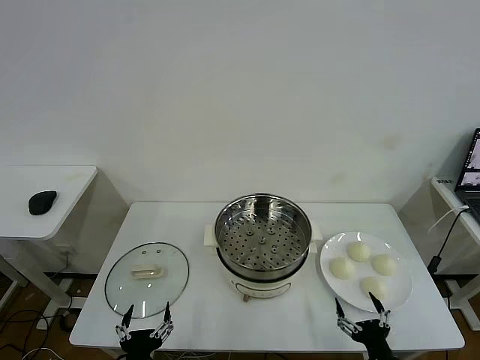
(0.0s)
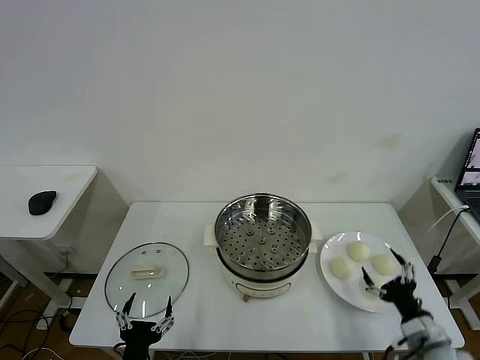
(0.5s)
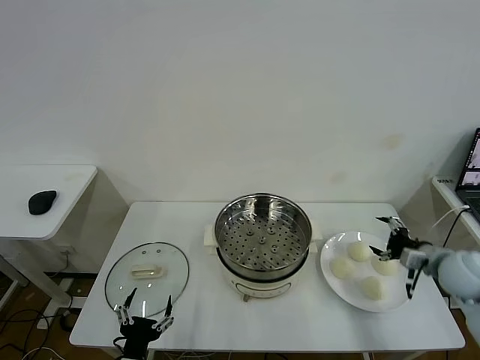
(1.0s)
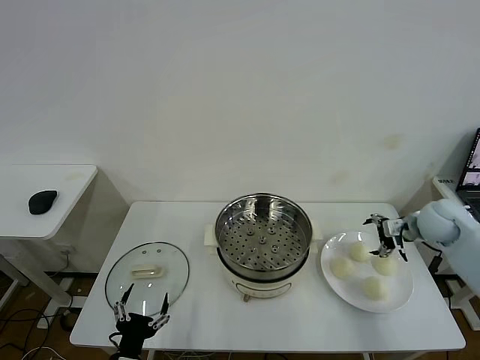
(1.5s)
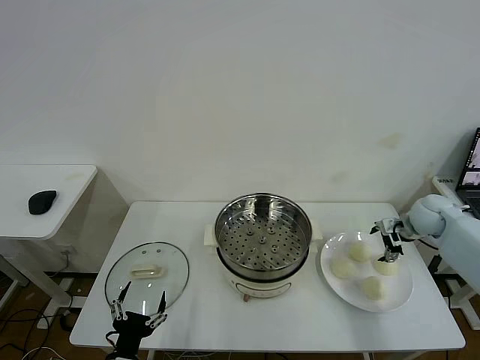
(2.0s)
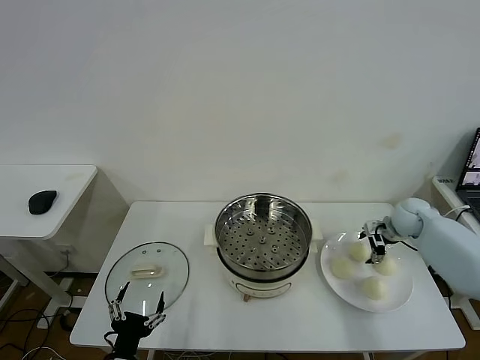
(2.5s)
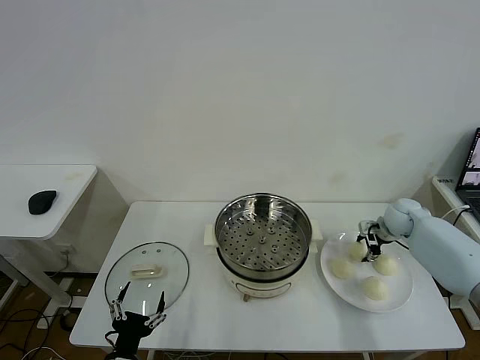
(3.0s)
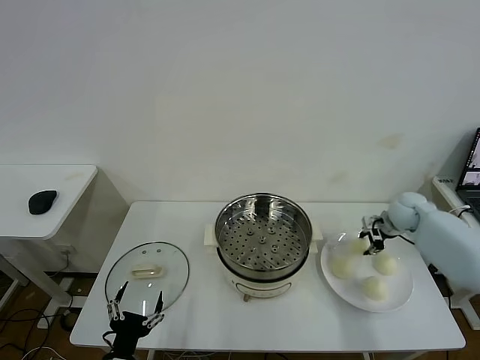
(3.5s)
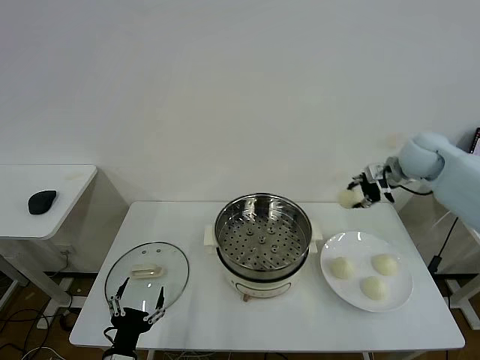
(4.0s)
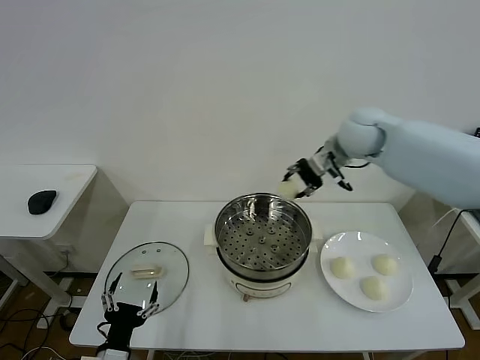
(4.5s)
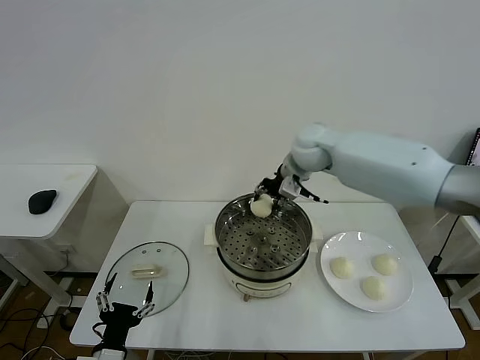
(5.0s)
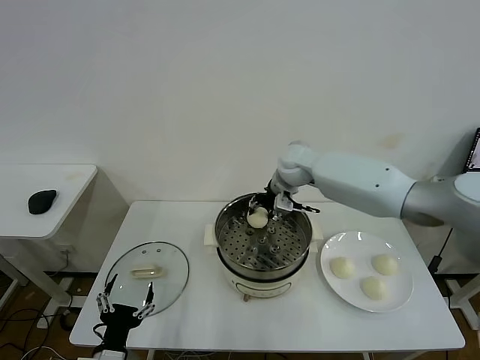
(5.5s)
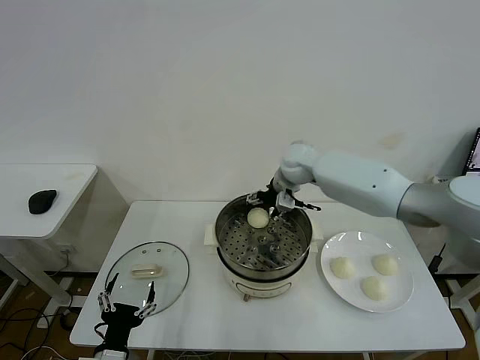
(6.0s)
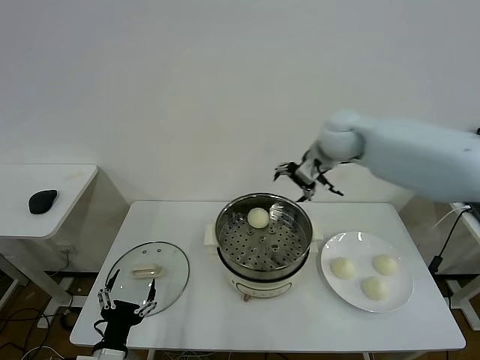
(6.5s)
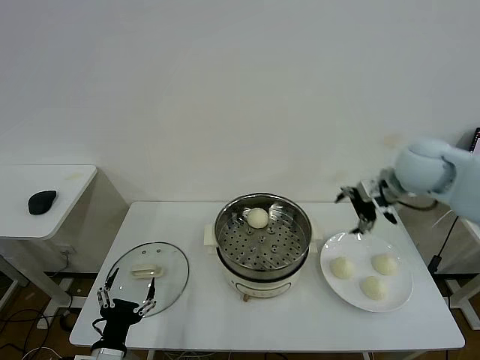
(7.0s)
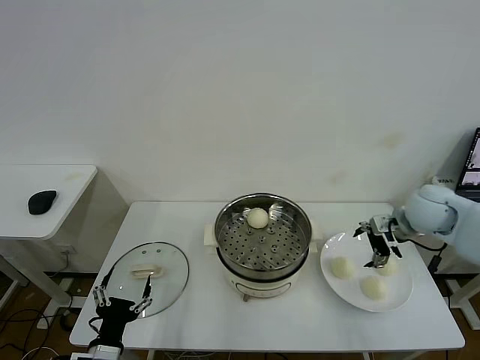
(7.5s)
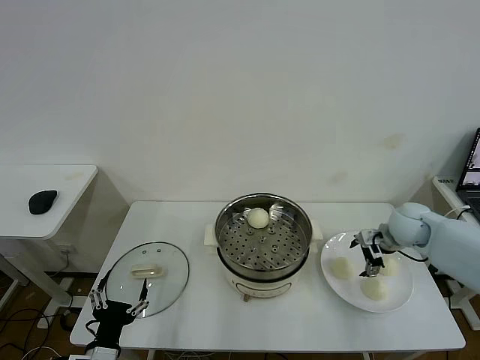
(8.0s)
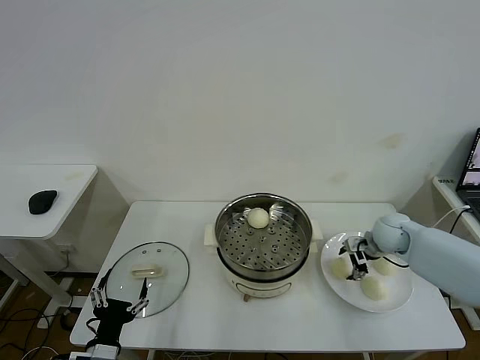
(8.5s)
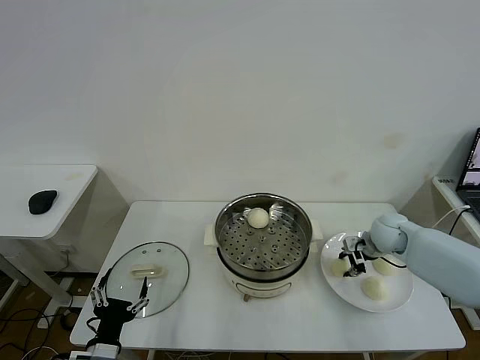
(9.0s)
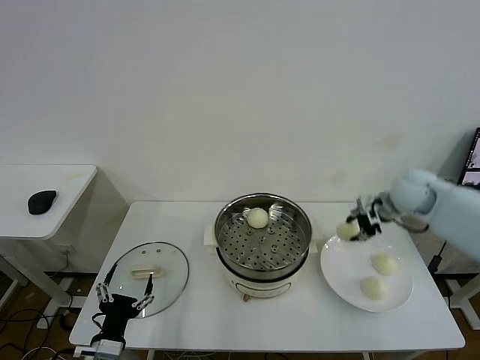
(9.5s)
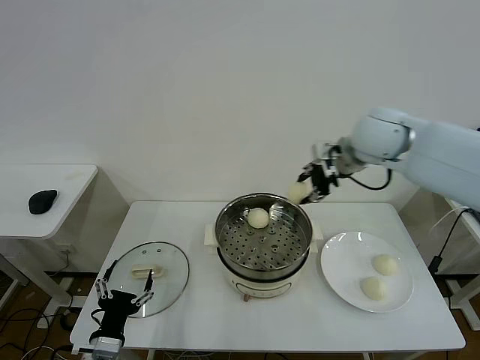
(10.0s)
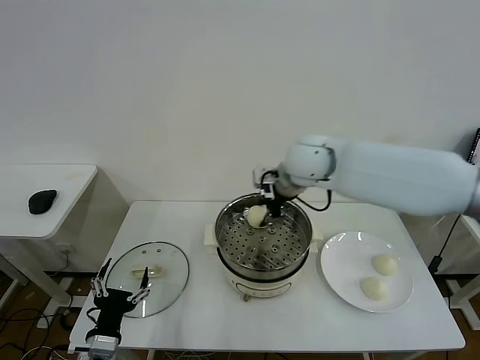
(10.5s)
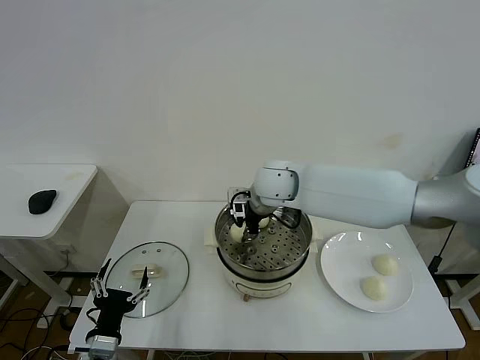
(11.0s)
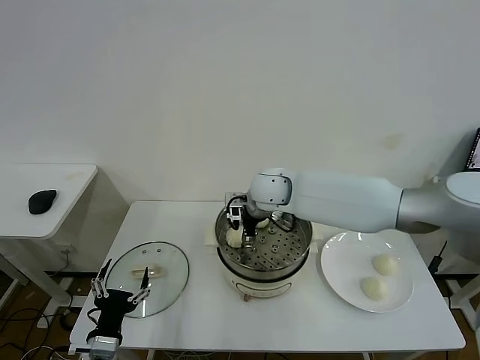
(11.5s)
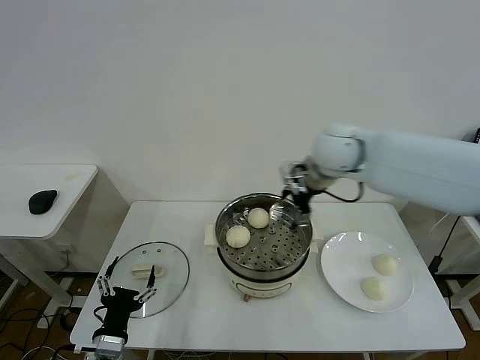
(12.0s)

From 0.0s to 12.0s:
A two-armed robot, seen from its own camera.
Task of the whole recording: take steamed baozi put them in steamer then cover it.
Step, from 0.0s to 3.0s: Grasp the baozi in the plate with right gripper.
Step, from 3.5s to 6.0s: Place the baozi on the steamer with right gripper.
Step, from 6.5s to 9.0s: Grasp the baozi in the plate with right gripper.
Step, from 9.5s to 11.5s: Place the baozi on the steamer with right gripper.
From 2.0s to 4.0s: The right gripper shifts approximately 20 cm upward and to the left, and closes up.
From 4.0s to 6.0s: The right gripper heads to the left, covering about 20 cm, and opens its fingers.
From 6.0s to 8.0s: The right gripper travels to the right, backward and downward by some 30 cm.
From 8.0s to 10.0s: The right gripper heads upward and to the left, covering roughly 30 cm, and closes its fingers.
From 10.0s to 12.0s: The right gripper travels to the left and back again, about 15 cm each way, and opens.

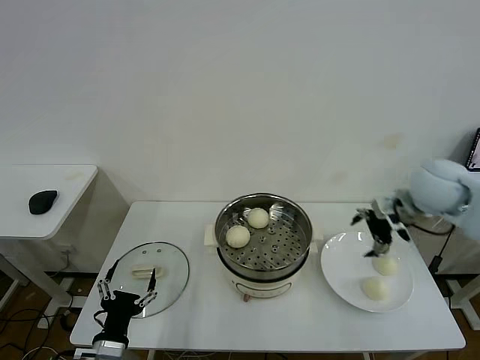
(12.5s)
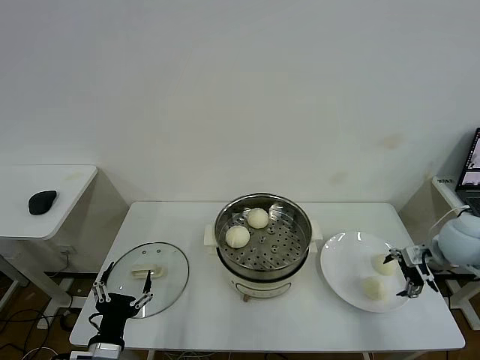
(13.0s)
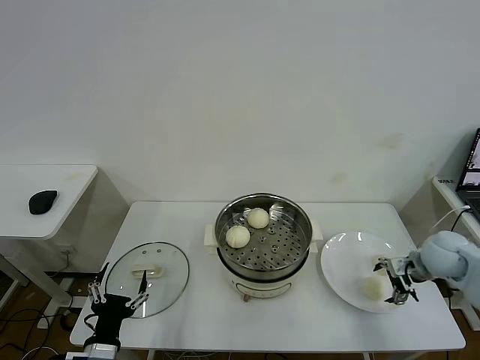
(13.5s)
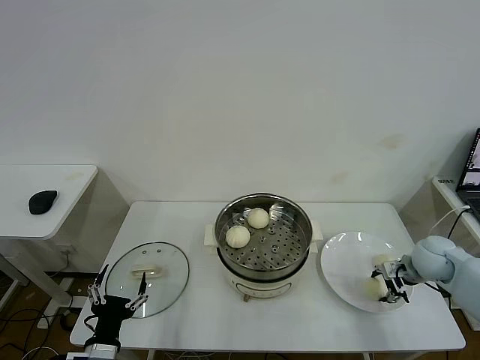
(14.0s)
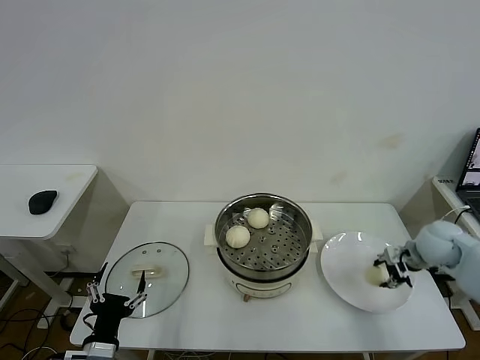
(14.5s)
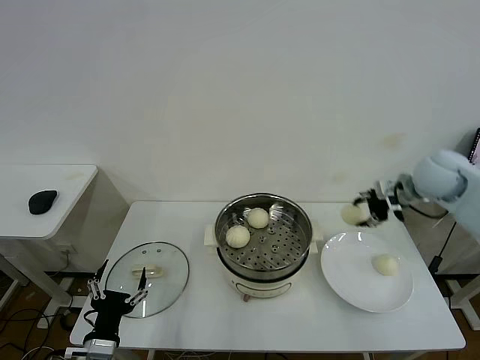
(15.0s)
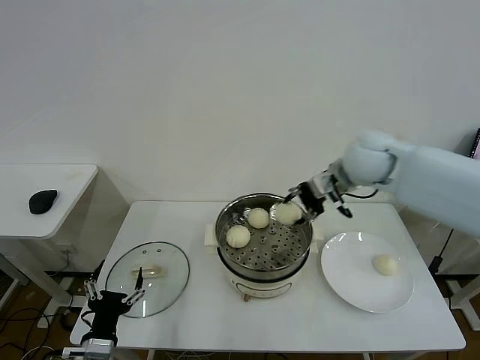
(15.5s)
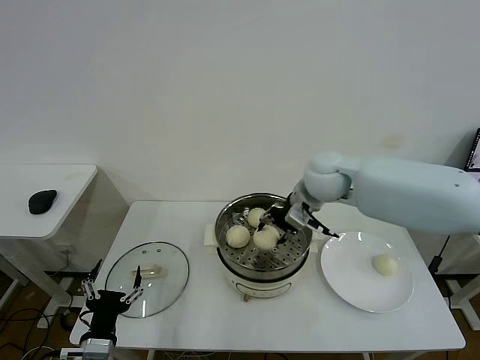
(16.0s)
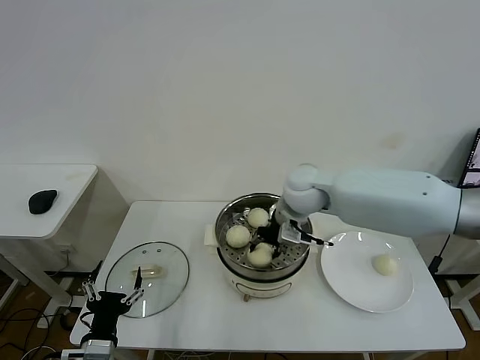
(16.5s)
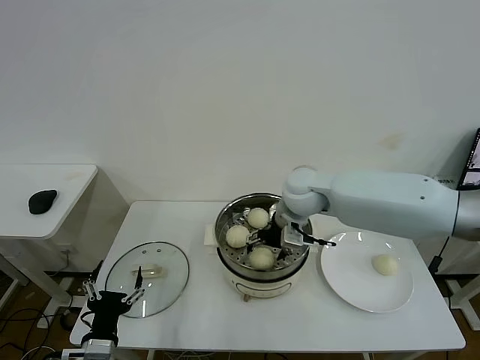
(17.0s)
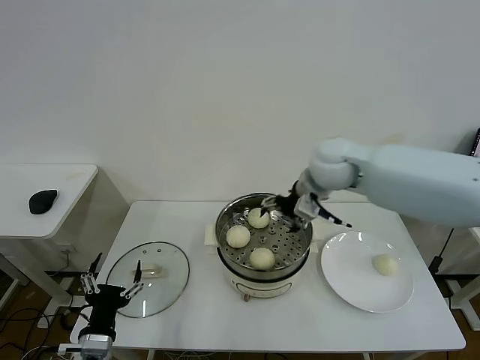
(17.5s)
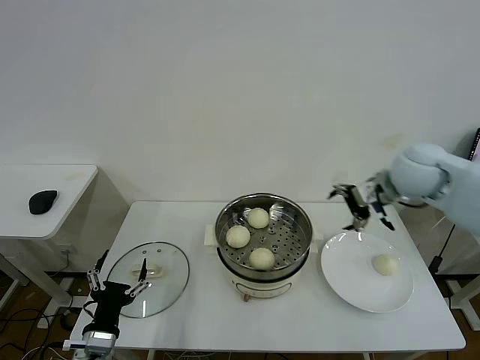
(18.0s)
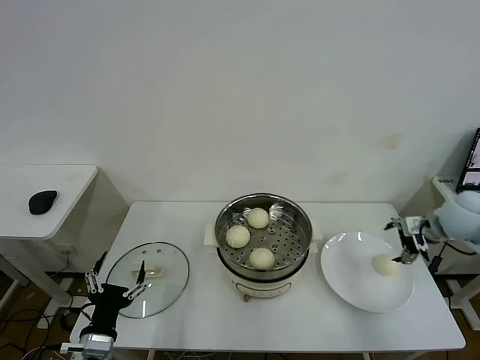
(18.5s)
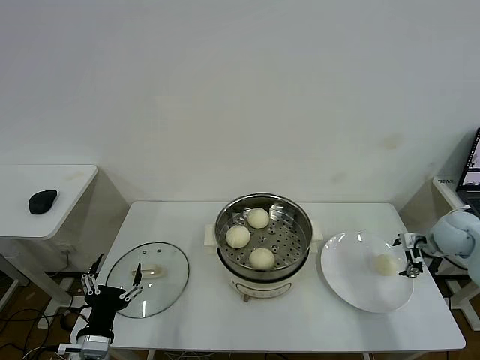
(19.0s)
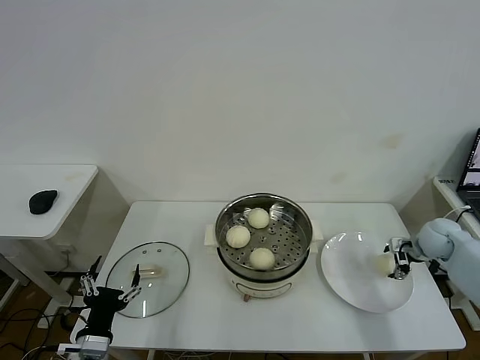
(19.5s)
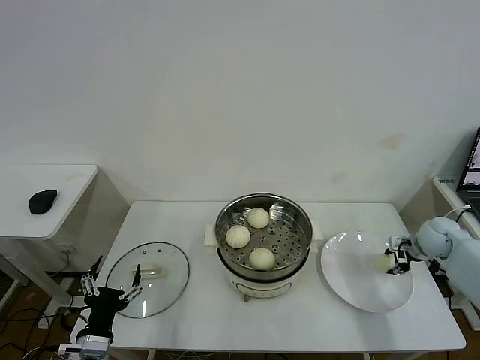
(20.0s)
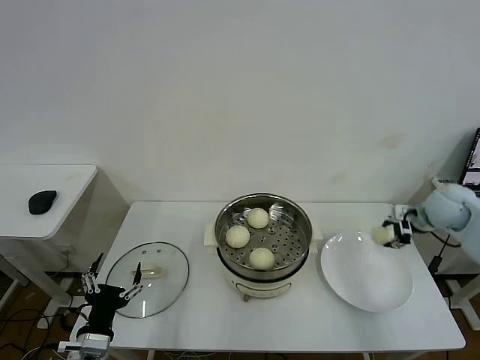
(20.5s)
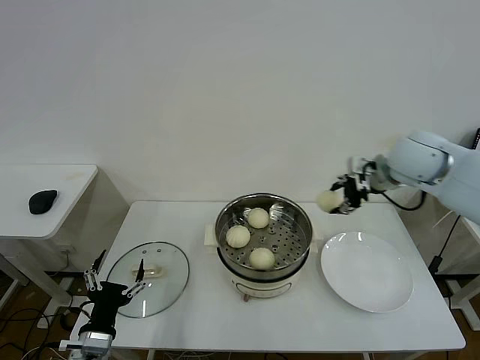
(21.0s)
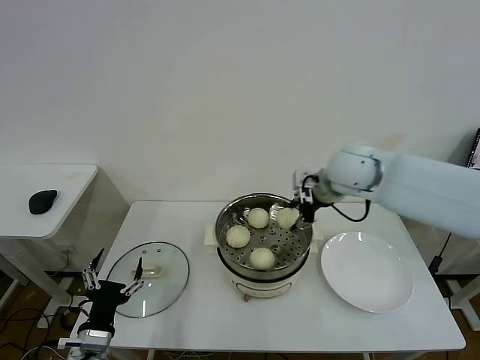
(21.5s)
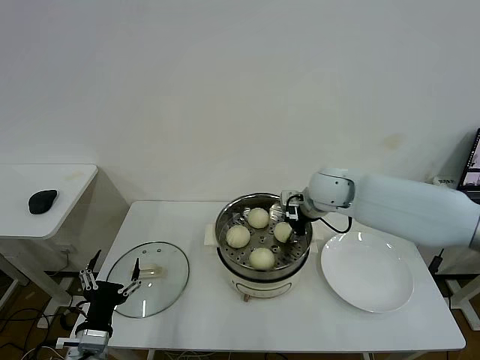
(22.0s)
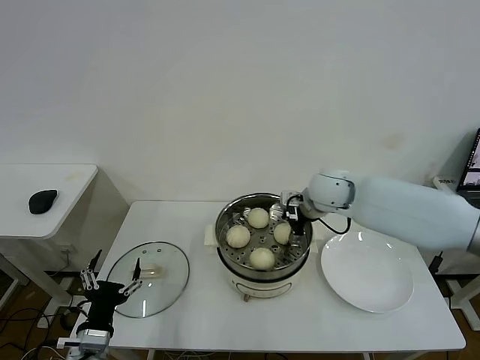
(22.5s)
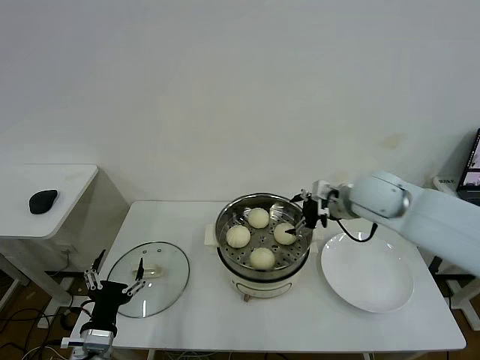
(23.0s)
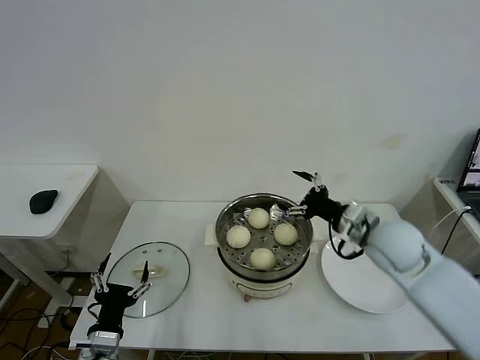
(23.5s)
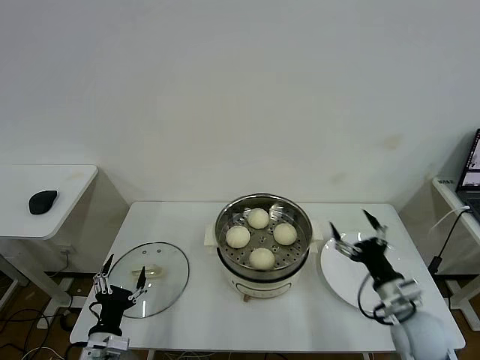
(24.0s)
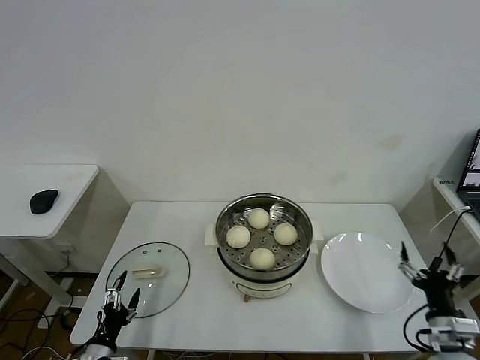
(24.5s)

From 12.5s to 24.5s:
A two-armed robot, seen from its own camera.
Task of the whole recording: take steamed baozi put them in steamer then cover it.
Step, from 12.5s to 14.0s: Grasp the baozi in the plate with right gripper.
Step, from 14.5s to 17.0s: Place the baozi on the steamer with right gripper.
Step, from 17.5s to 20.0s: Grasp the baozi in the plate with right gripper.
Step, from 20.5s to 22.5s: Place the baozi on the steamer with right gripper.
From 12.5s to 14.5s: The right gripper moves downward and to the right, about 15 cm, and closes.
From 14.5s to 16.5s: The right gripper is displaced to the left by roughly 30 cm.
From 16.5s to 18.5s: The right gripper travels to the right by about 35 cm, and opens up.
From 18.5s to 20.5s: The right gripper moves approximately 10 cm downward and comes back, and closes.
From 20.5s to 22.5s: The right gripper moves to the left, roughly 25 cm, and opens its fingers.
From 22.5s to 24.5s: The right gripper heads backward, to the right and downward, covering about 40 cm. Meanwhile the left gripper travels downward and to the left by some 15 cm.

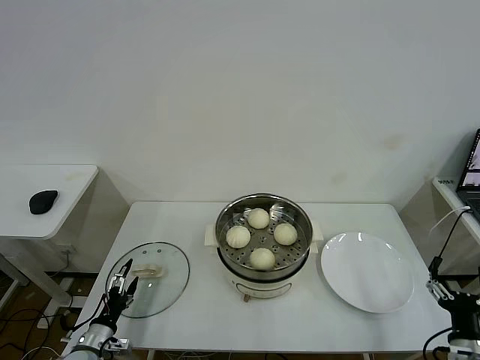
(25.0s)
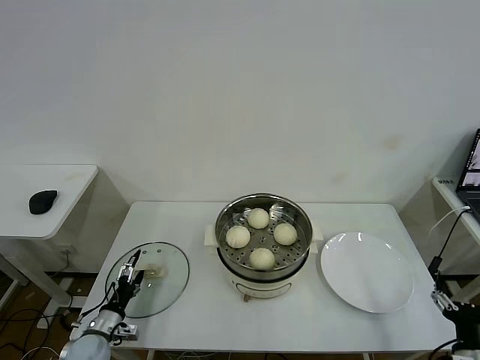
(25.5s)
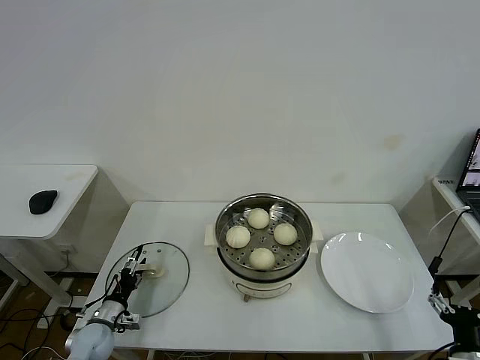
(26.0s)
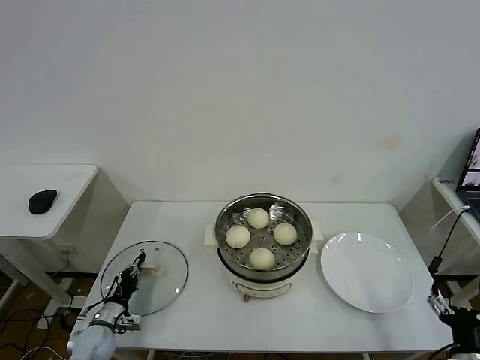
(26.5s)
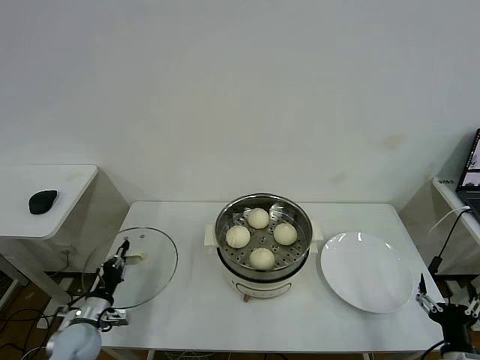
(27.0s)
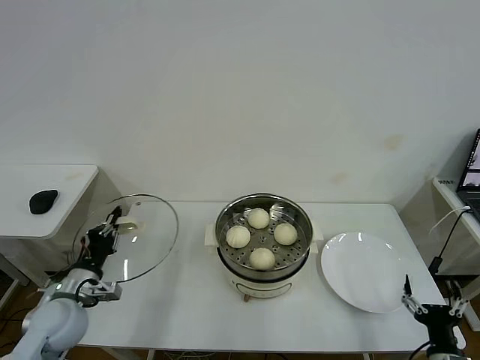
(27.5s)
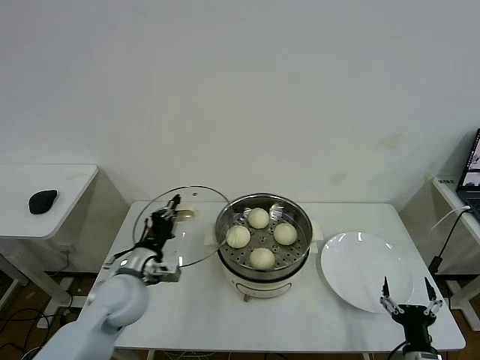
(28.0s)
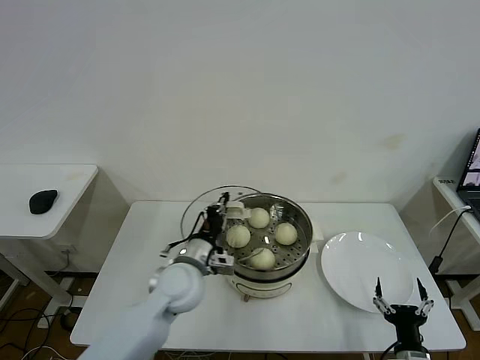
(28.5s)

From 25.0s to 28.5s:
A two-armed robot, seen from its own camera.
Task of the whole recording: take steamed baozi put them in steamer then cover it.
From 25.0s to 27.0s: The left gripper heads forward, covering some 5 cm, and closes.
From 27.0s to 28.5s: The right gripper travels to the left by about 5 cm. Meanwhile the left gripper travels to the right and upward by about 30 cm.
